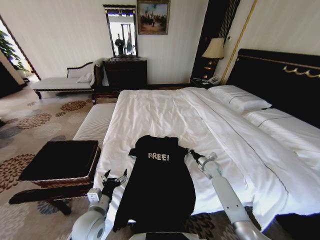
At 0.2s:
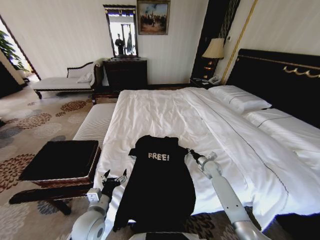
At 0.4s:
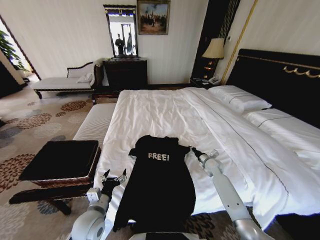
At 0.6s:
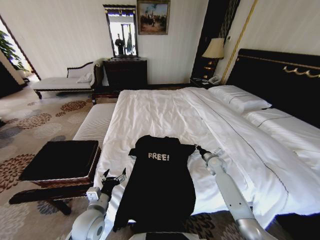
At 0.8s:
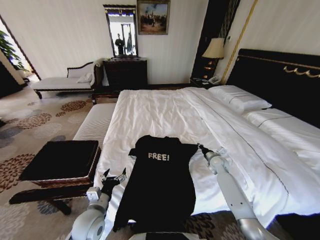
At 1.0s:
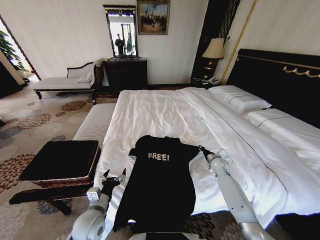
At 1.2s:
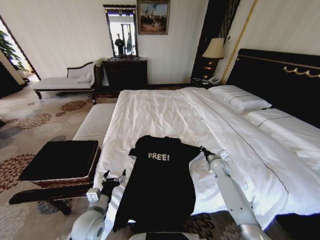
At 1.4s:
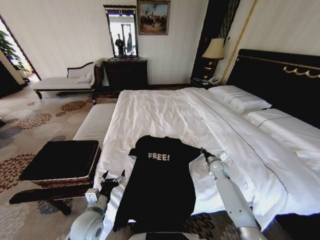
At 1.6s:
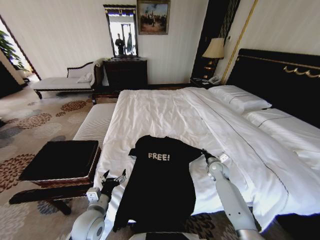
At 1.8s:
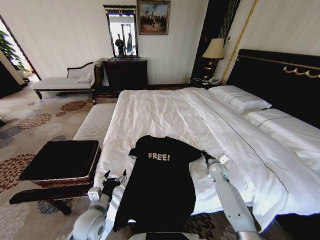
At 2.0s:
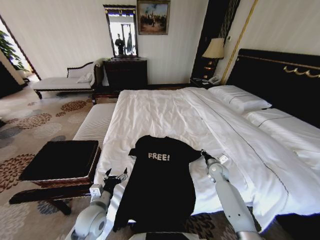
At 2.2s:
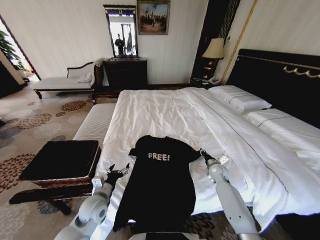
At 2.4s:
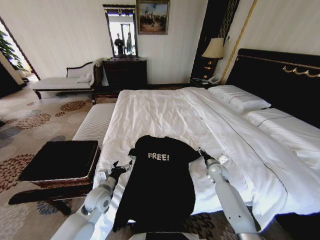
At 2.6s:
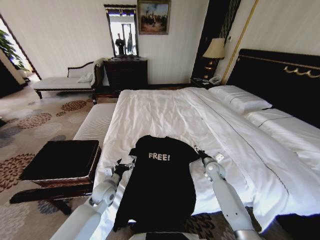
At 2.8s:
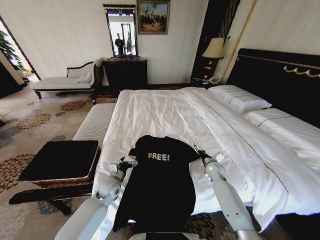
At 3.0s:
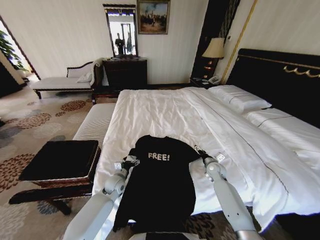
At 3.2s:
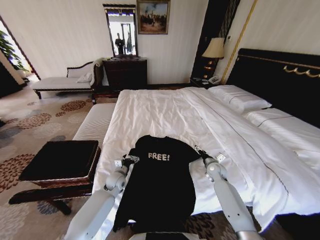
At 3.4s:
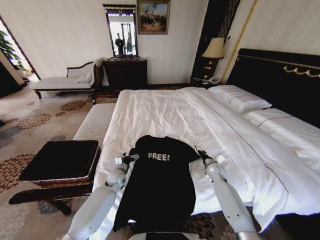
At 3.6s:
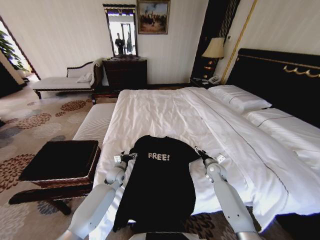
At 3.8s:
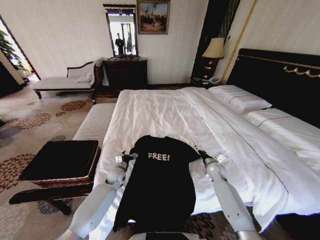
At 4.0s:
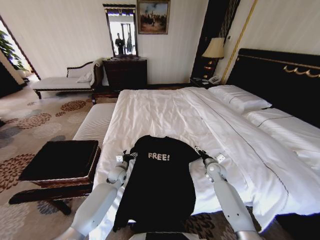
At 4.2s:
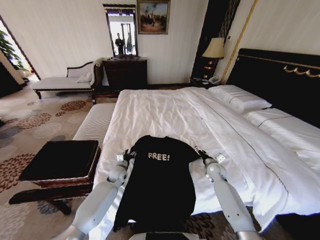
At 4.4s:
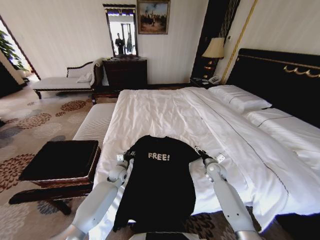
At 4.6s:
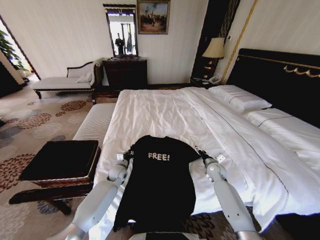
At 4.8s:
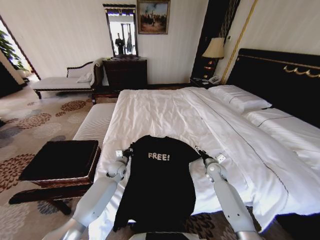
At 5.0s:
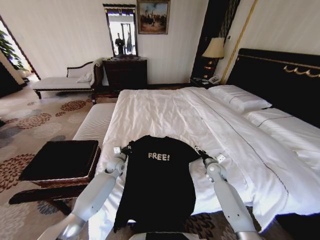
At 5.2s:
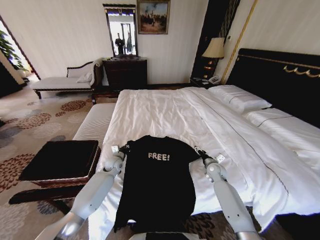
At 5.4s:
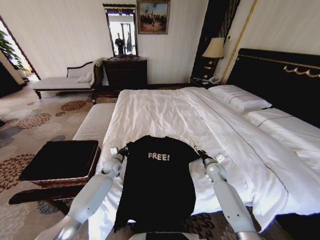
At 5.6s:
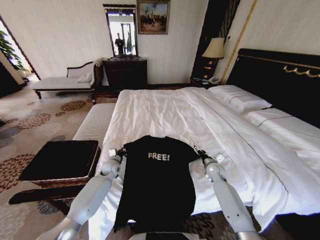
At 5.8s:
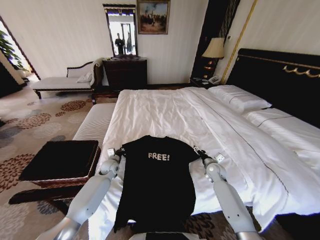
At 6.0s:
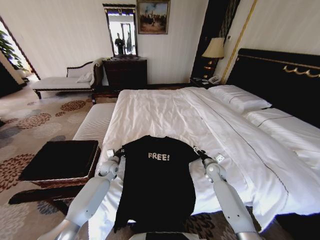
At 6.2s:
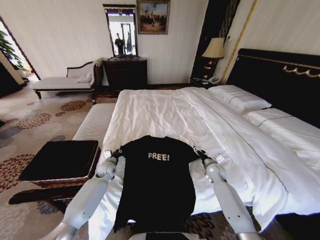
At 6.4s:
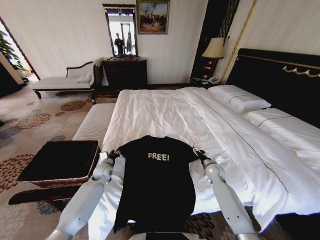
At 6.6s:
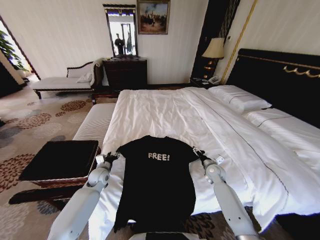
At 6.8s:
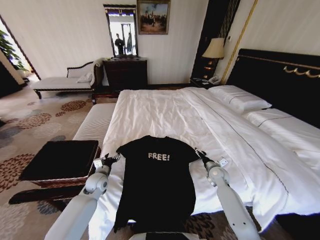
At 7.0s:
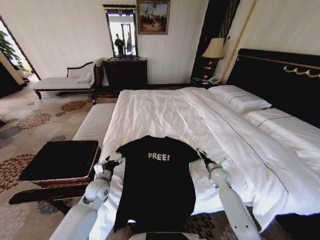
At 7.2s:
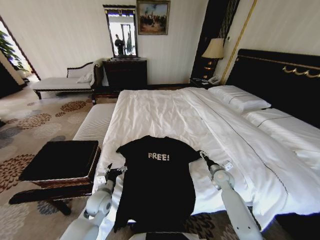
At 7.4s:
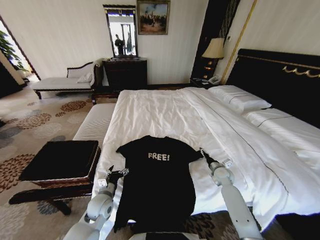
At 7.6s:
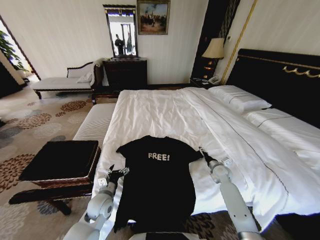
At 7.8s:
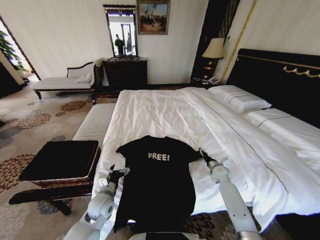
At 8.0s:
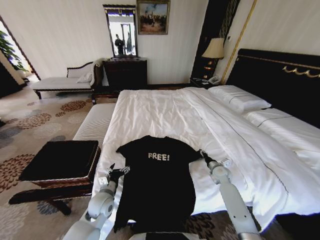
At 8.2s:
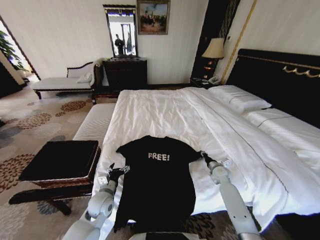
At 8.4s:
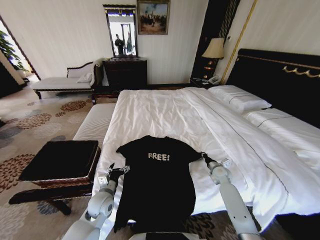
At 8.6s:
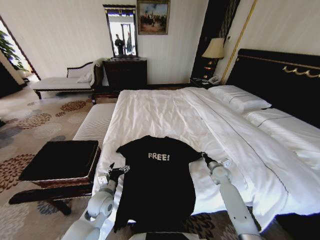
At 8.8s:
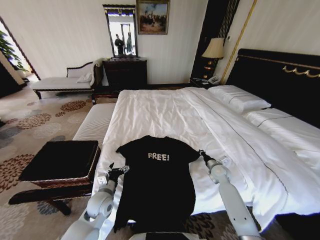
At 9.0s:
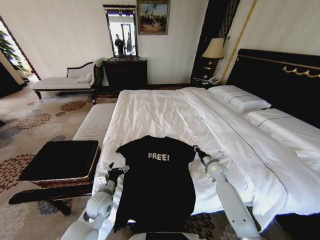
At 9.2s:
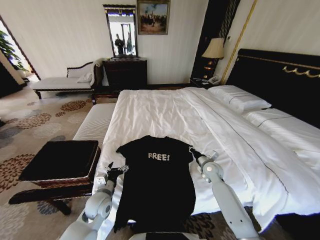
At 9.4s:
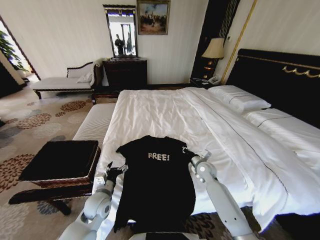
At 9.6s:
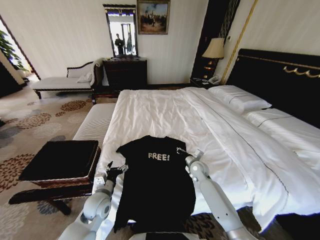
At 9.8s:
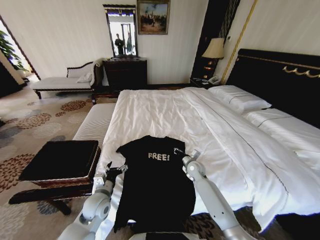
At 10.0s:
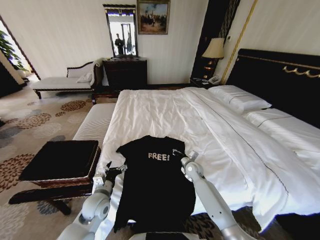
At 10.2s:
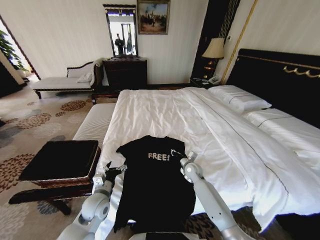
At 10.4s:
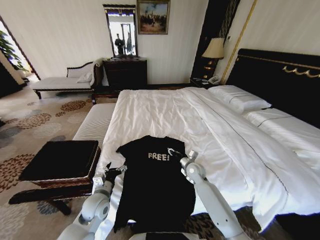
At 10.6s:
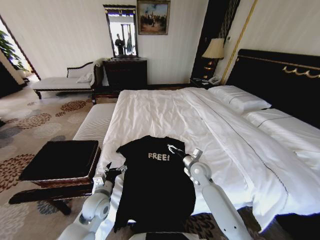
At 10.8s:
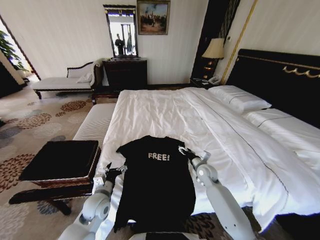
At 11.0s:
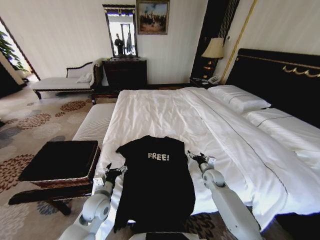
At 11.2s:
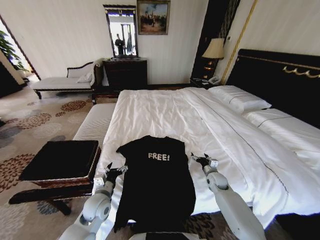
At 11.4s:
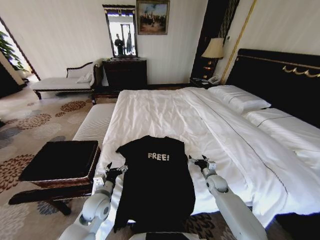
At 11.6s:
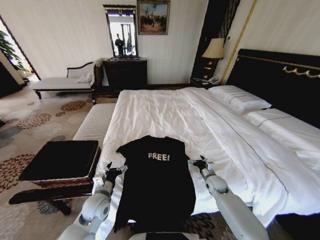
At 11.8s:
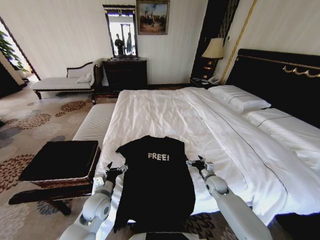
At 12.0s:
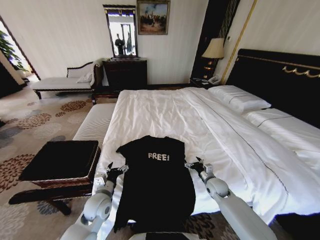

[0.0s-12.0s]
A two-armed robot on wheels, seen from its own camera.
Task of the whole recording: Fold the clothes on the bed and place them into the basket.
1.6s to 3.0s: The right gripper opens; the left gripper is displaced forward and downward by approximately 20 cm.
3.0s to 4.4s: The left gripper is displaced forward by roughly 5 cm, and closes its fingers.
4.4s to 6.0s: The left gripper goes approximately 5 cm to the left.
6.0s to 7.6s: The left gripper goes about 20 cm backward, and opens.
7.6s to 9.0s: The right gripper ends up some 5 cm from where it was, and closes.
9.0s to 10.4s: The right gripper shifts some 10 cm to the left.
10.4s to 12.0s: The right gripper heads to the right, backward and downward, covering roughly 15 cm, and opens up.

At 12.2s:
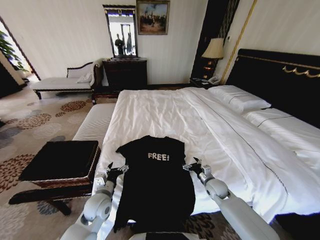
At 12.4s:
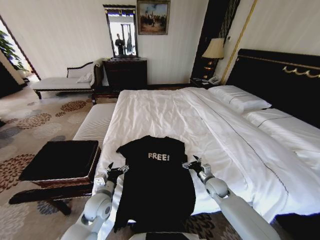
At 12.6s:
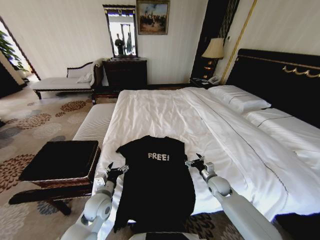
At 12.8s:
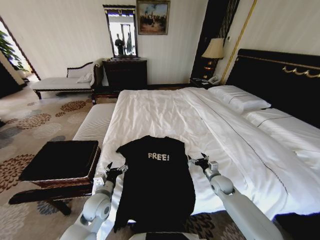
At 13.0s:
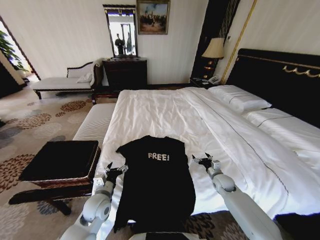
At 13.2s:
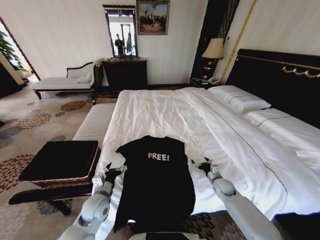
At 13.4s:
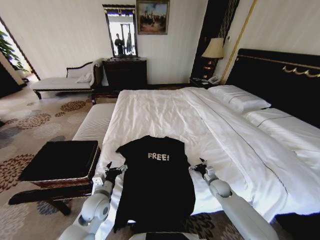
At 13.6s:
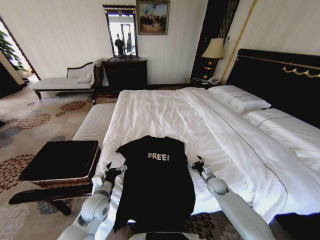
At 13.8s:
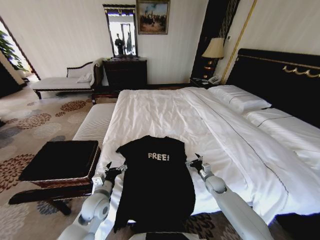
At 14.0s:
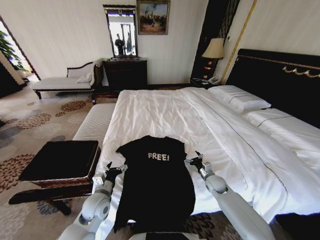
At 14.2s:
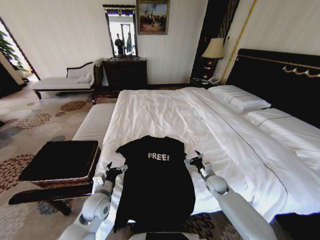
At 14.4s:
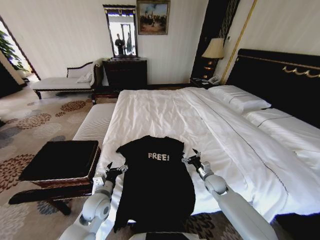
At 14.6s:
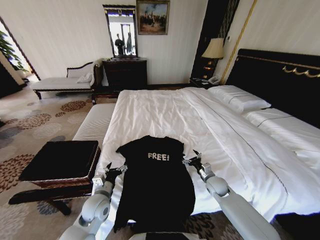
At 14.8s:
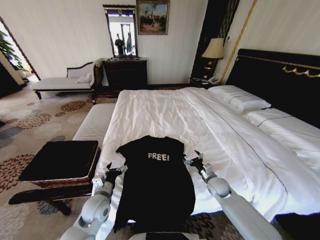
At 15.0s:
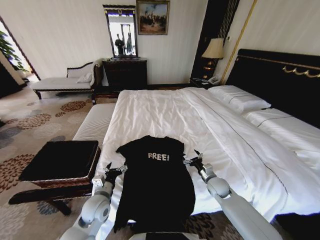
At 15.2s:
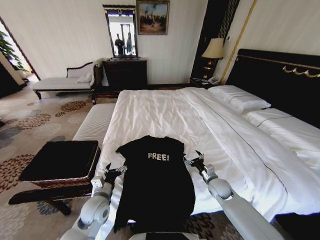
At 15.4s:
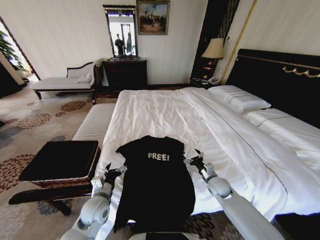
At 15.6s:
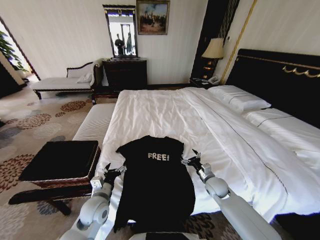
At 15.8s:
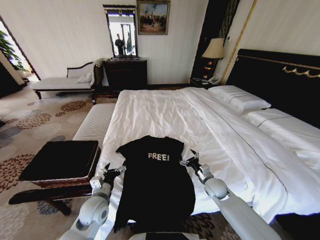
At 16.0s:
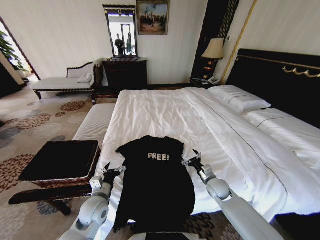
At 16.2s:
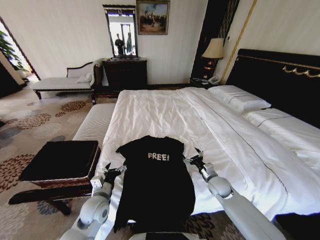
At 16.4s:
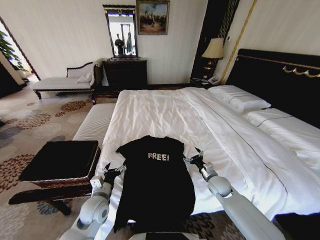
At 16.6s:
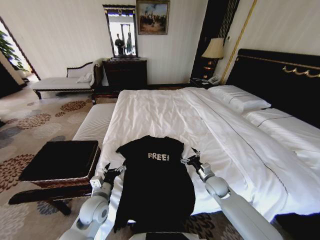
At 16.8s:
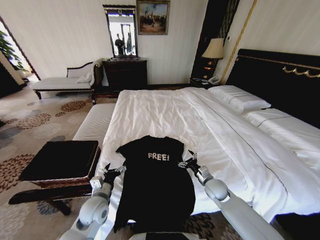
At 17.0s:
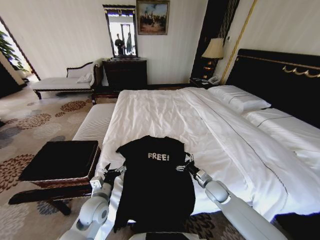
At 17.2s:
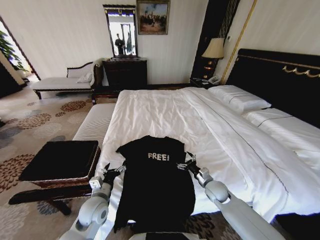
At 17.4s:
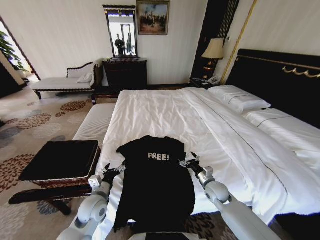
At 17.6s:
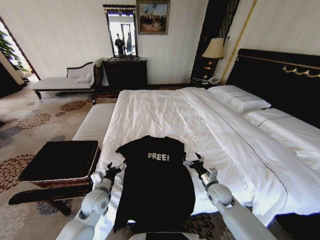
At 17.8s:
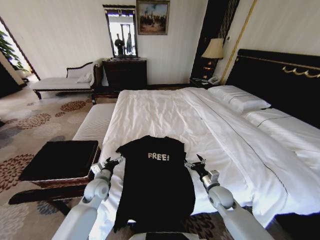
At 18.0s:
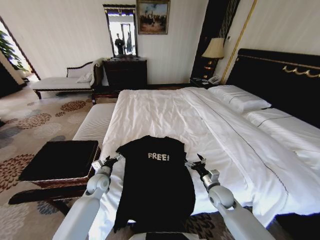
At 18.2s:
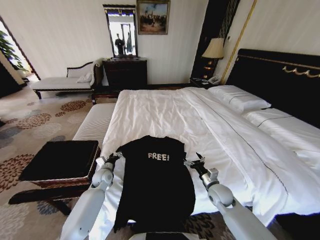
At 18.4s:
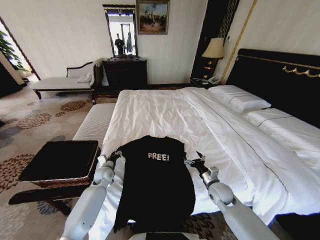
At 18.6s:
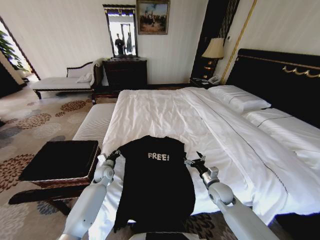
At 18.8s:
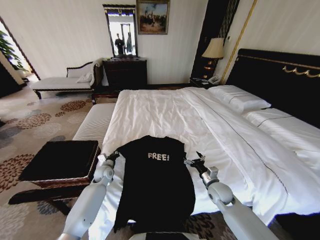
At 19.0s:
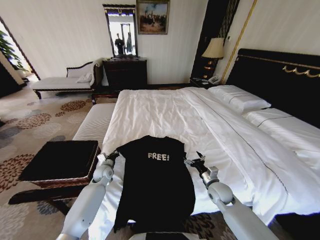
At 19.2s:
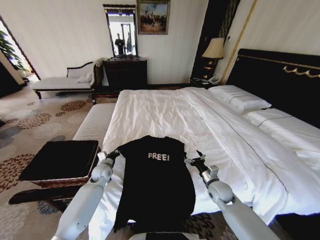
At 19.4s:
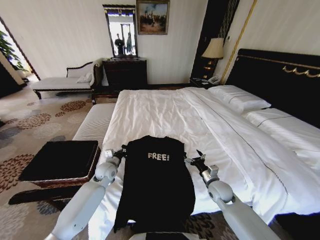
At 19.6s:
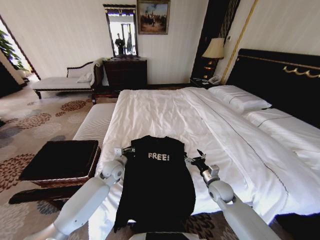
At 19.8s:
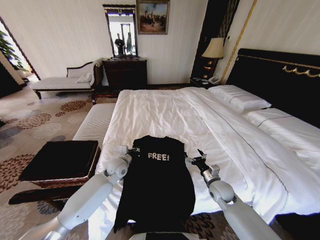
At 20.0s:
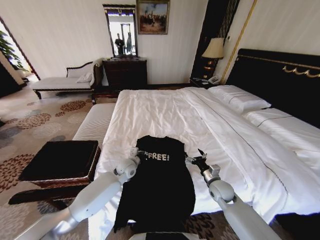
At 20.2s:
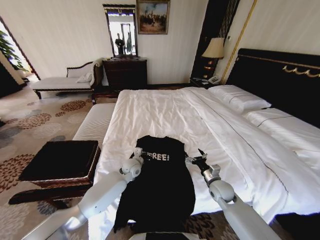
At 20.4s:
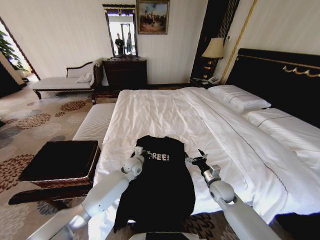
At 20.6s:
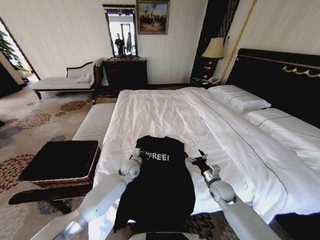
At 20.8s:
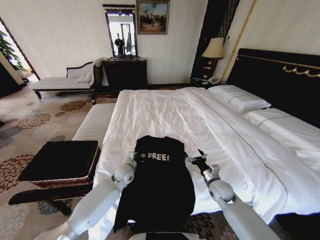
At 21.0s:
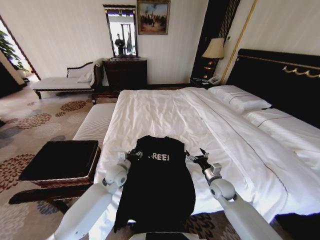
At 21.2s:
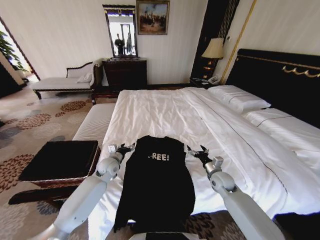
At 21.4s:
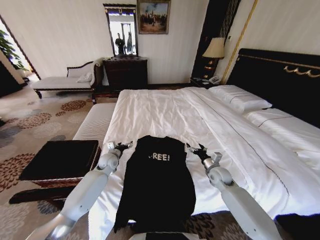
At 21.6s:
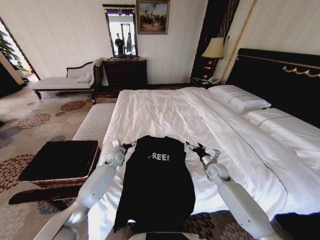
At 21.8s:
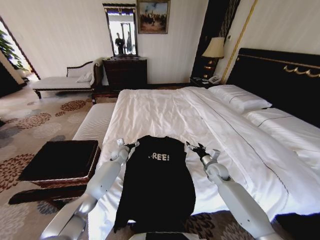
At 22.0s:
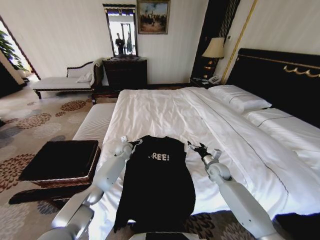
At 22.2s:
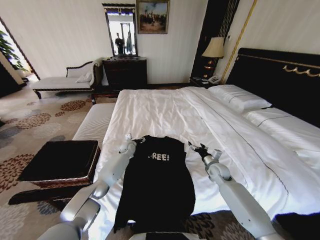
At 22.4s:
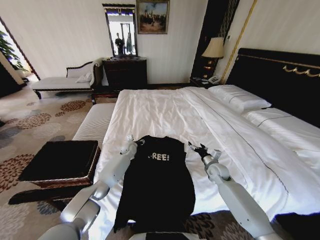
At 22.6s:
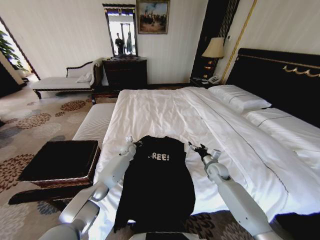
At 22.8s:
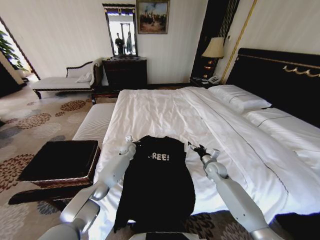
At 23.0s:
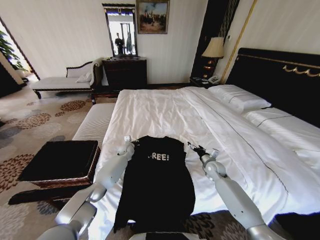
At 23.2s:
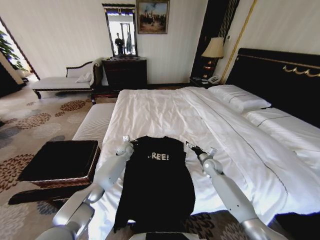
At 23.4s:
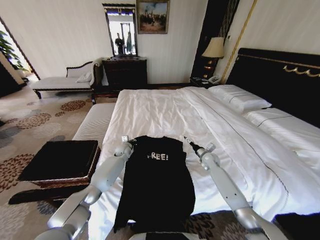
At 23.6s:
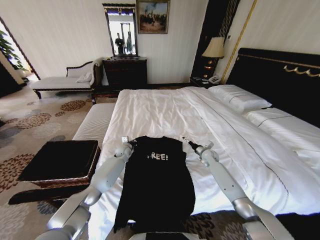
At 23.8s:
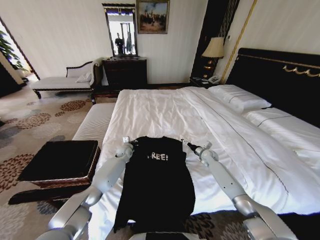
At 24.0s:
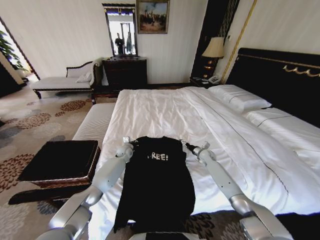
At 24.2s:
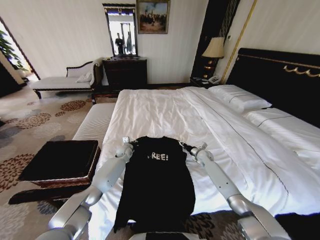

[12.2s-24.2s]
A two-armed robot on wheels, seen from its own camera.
Task of the whole recording: Fold the clothes on the bed and place them into the basket.
12.2s to 13.8s: The right gripper shifts by roughly 5 cm.
13.8s to 15.2s: The right gripper moves approximately 5 cm.
15.2s to 16.6s: The grippers stay close to where they were, moving slightly.
16.6s to 18.2s: The left gripper travels forward and downward by roughly 15 cm.
18.2s to 19.8s: The left gripper is displaced to the right and upward by some 15 cm, and closes up.
19.8s to 21.2s: The left gripper shifts roughly 5 cm to the left, and opens its fingers.
21.2s to 22.6s: The left gripper travels forward and downward by roughly 15 cm, and closes; the right gripper is displaced forward by roughly 5 cm.
22.6s to 24.2s: The left gripper closes, while the right gripper moves forward, roughly 10 cm.
